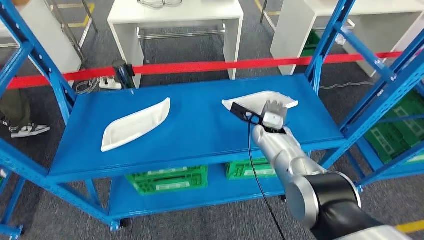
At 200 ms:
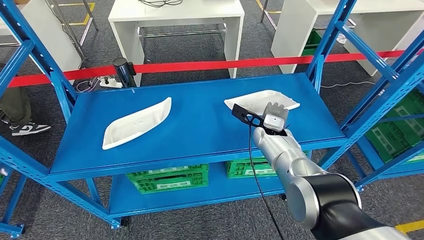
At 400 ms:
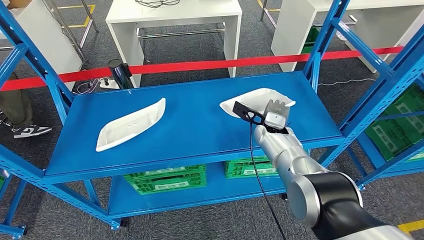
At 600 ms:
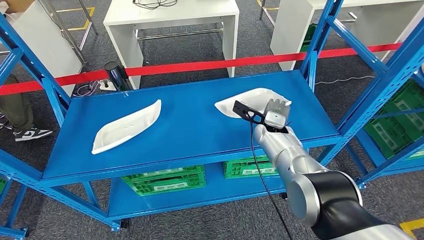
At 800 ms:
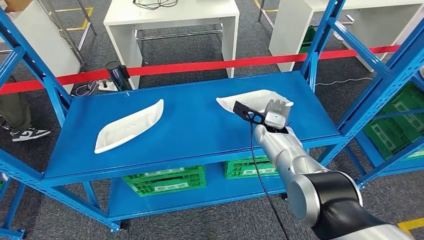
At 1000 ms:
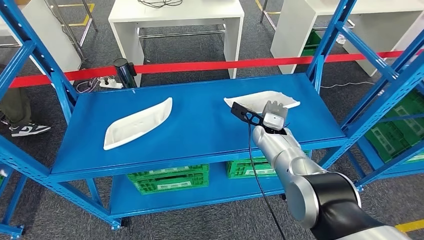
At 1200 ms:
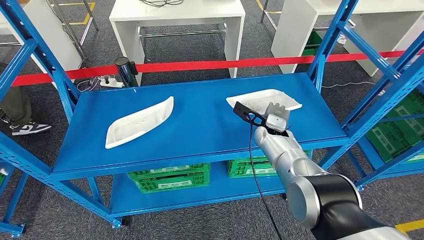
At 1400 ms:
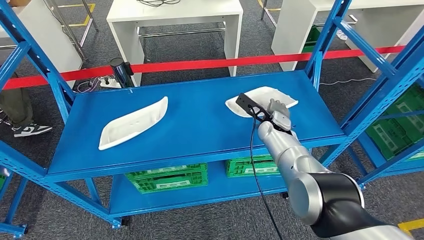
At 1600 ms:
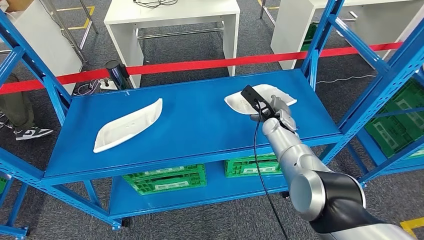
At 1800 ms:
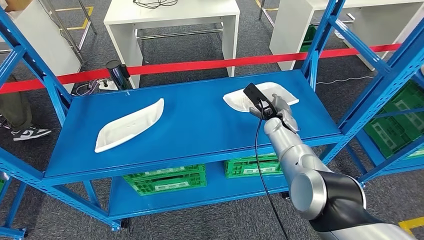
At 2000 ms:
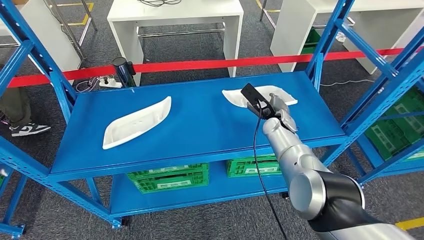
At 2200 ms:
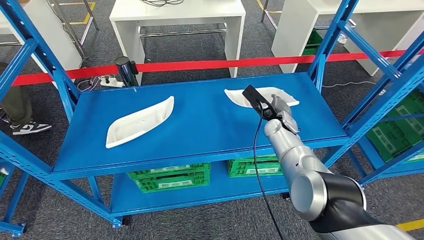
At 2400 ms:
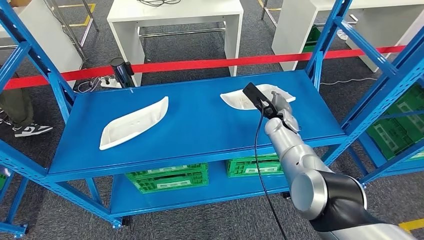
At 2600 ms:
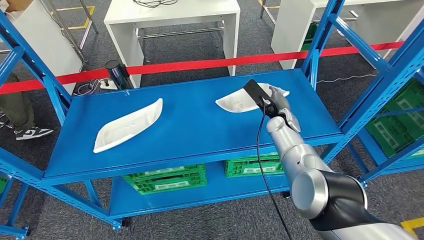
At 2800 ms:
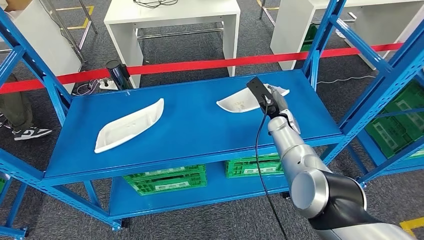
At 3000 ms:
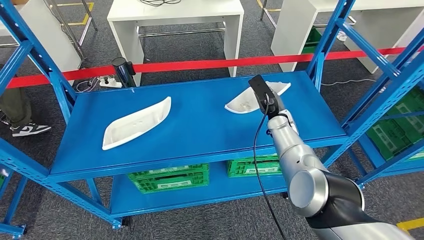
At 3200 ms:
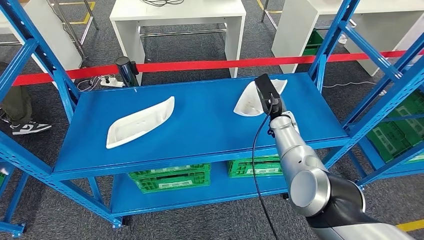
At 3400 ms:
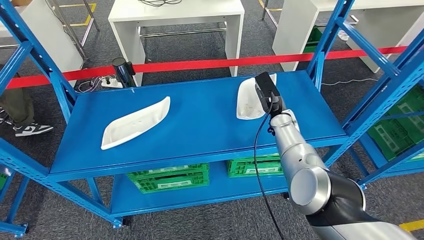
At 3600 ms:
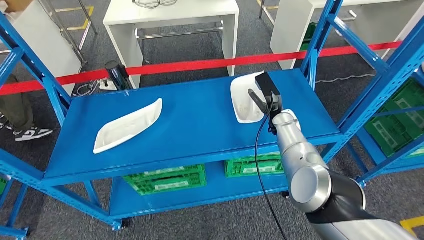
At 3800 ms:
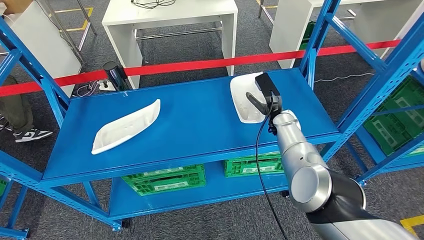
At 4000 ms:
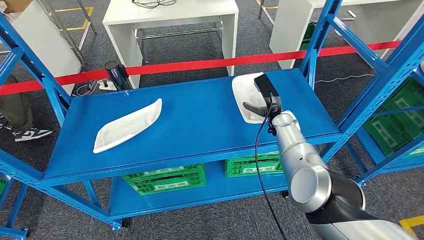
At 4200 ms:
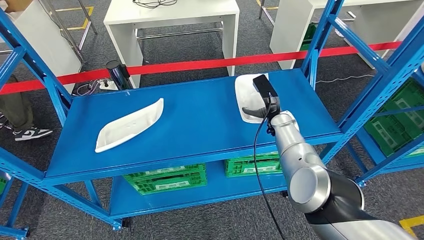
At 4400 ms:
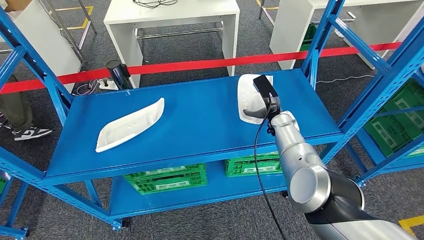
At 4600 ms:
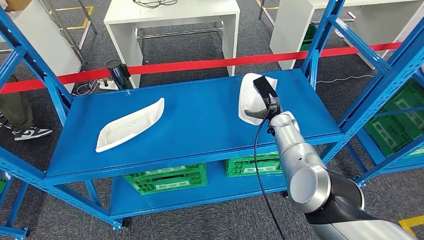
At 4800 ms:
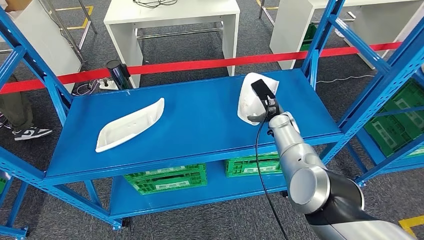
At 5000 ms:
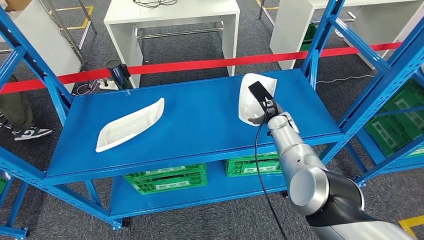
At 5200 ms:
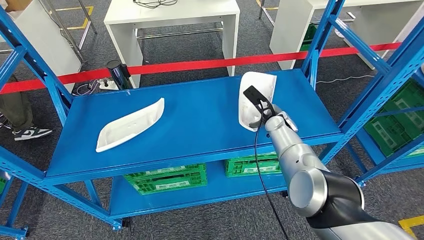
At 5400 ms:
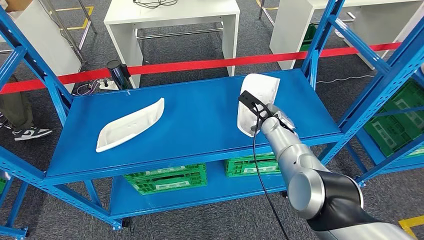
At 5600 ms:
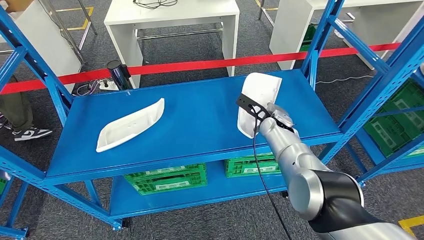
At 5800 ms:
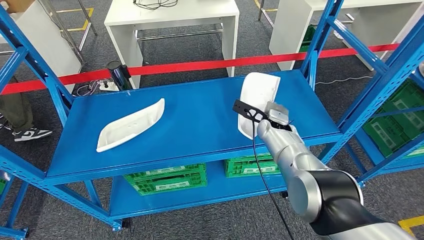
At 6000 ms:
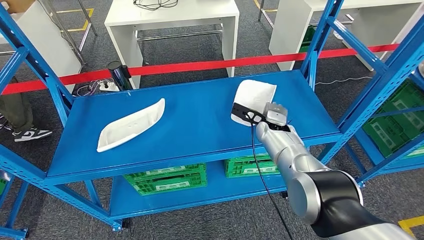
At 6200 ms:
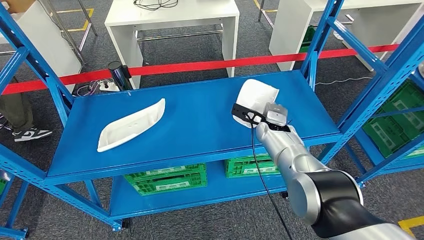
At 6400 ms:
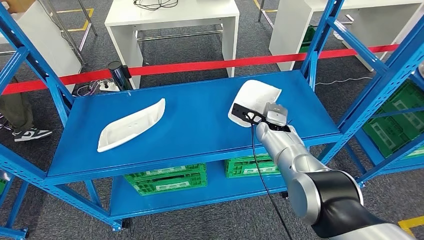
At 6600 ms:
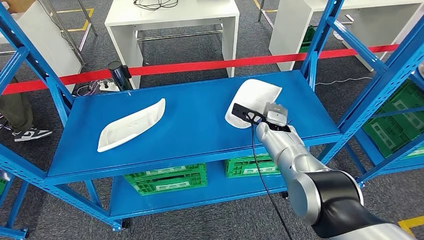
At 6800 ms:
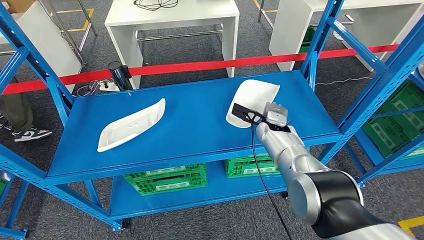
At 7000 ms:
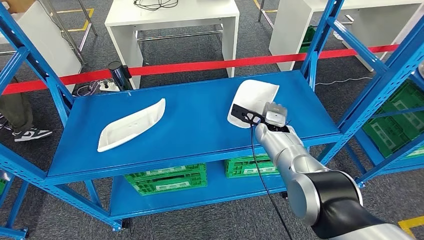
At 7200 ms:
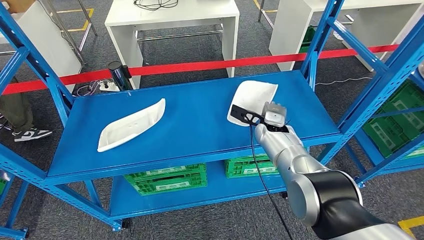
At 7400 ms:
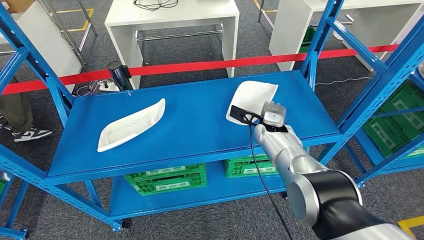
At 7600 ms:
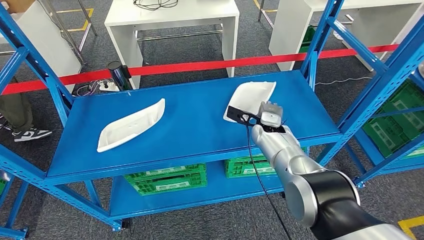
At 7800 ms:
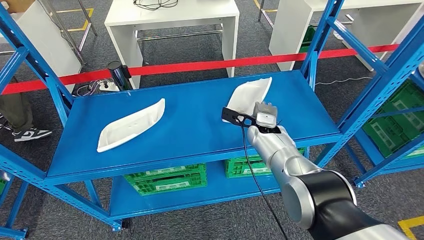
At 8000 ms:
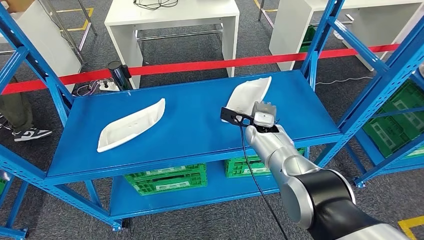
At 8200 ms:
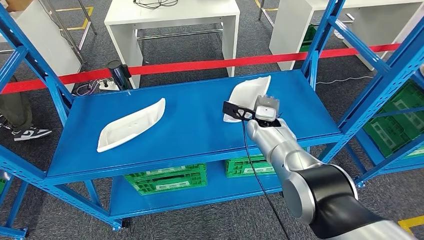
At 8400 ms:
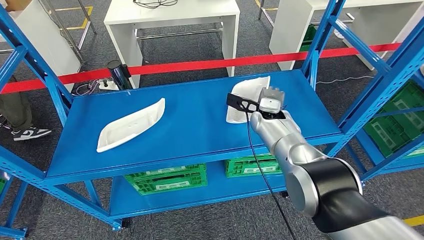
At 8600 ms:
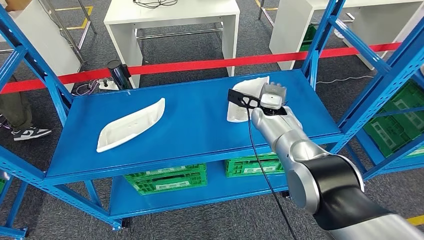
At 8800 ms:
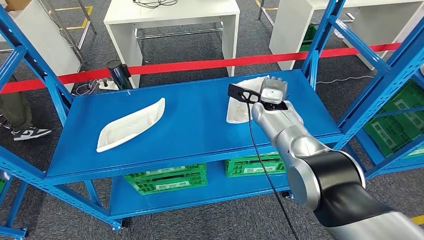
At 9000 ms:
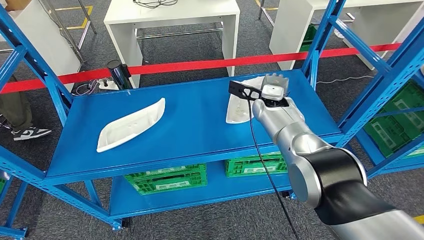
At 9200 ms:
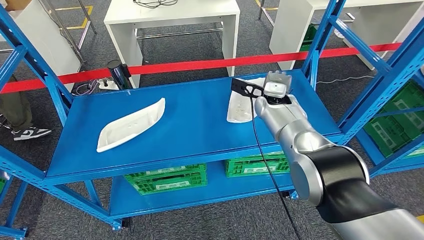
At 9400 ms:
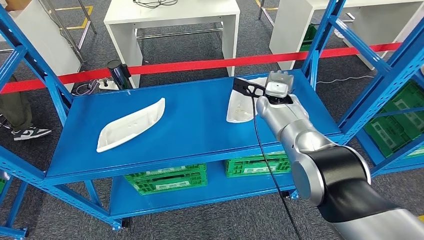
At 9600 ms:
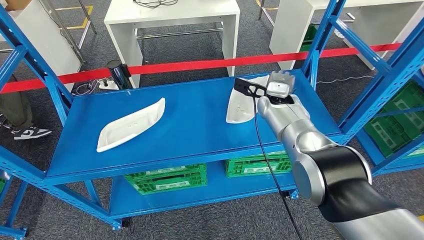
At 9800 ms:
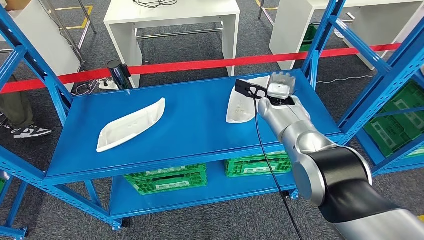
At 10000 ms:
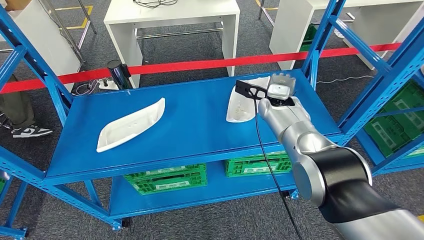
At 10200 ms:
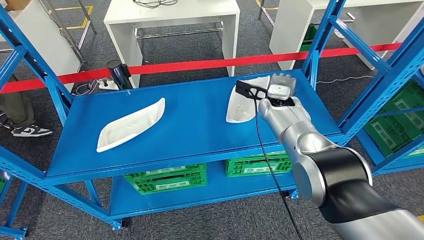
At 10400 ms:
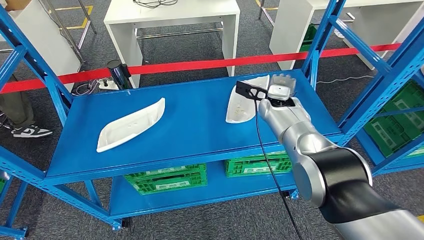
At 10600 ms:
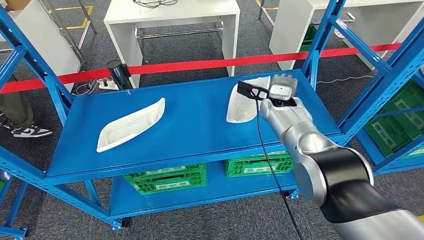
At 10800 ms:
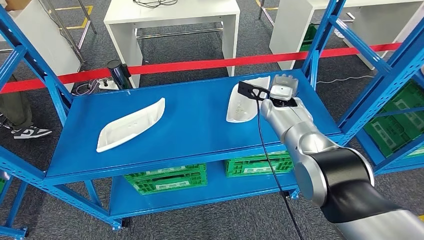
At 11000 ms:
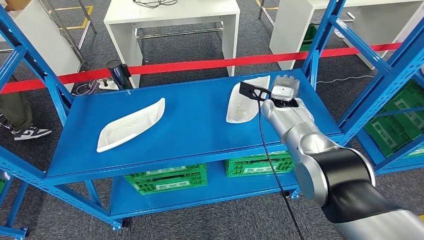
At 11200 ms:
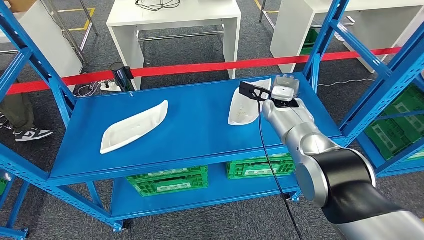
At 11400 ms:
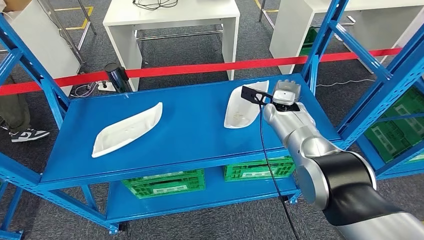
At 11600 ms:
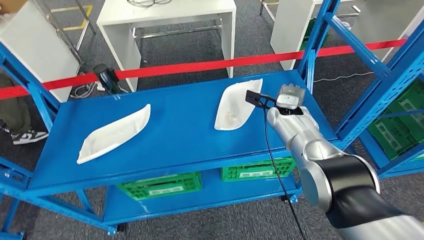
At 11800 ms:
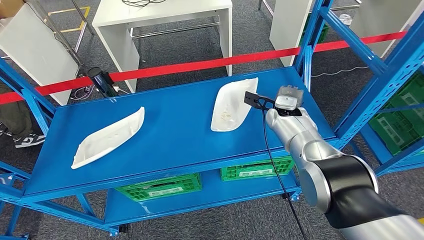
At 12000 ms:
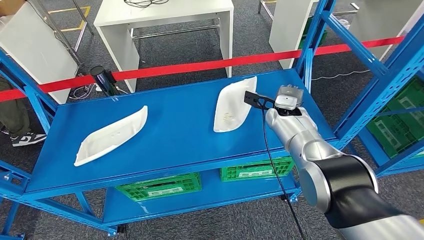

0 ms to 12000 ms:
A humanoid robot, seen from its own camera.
6000 ms to 7600 ms: There are only small adjustments of the hands.
7600 ms to 9000 ms: The right hand travels upward by some 10 cm.
9000 ms to 10400 ms: The hands make only small movements.

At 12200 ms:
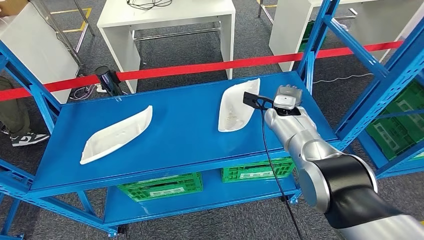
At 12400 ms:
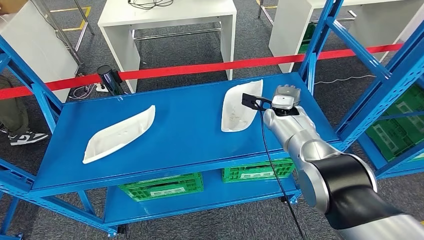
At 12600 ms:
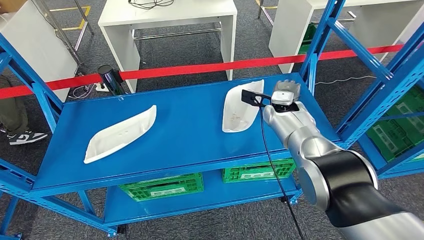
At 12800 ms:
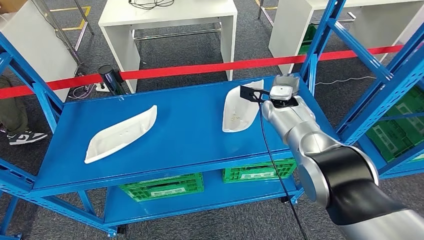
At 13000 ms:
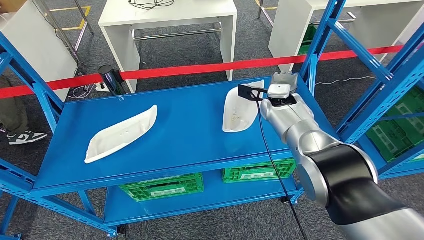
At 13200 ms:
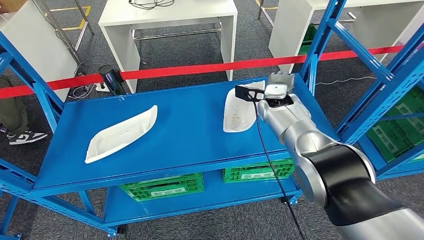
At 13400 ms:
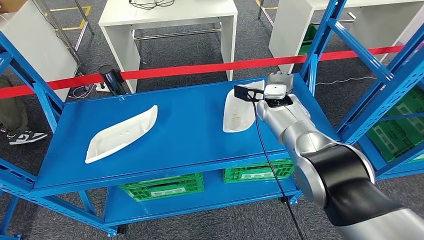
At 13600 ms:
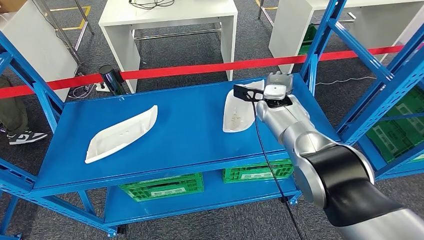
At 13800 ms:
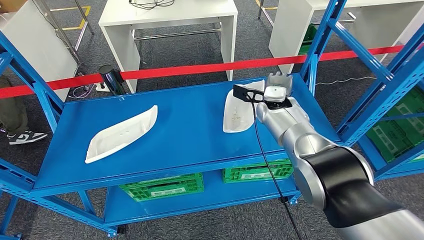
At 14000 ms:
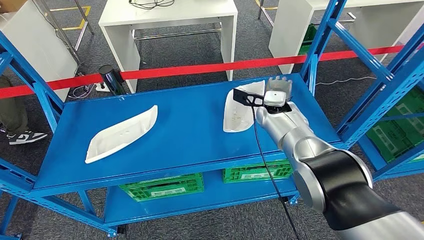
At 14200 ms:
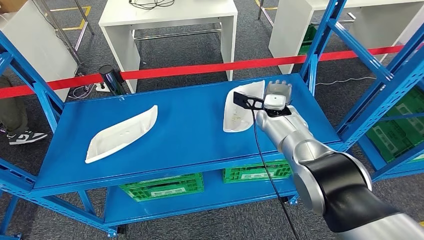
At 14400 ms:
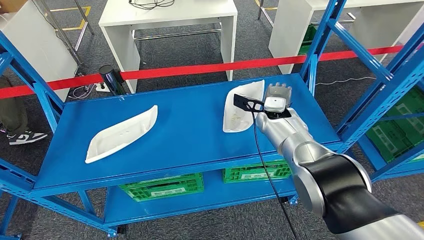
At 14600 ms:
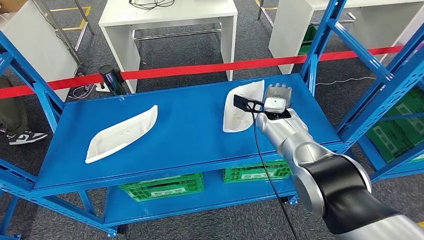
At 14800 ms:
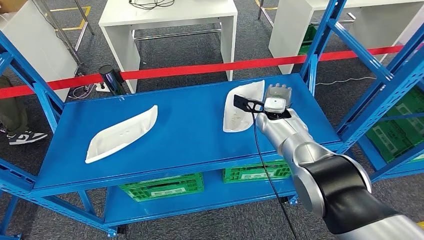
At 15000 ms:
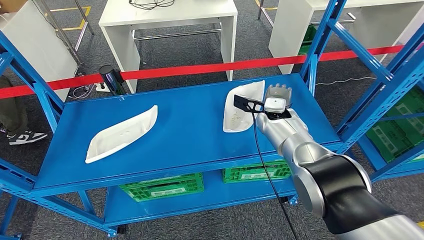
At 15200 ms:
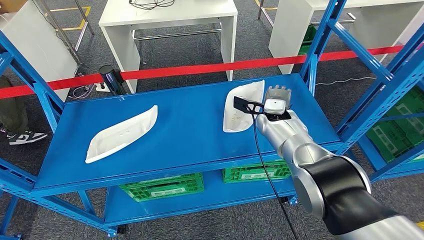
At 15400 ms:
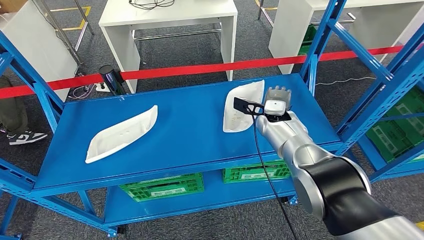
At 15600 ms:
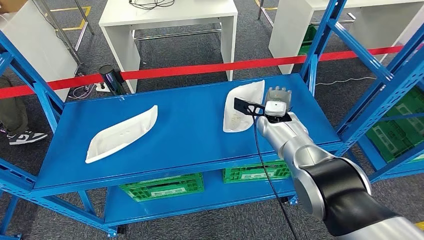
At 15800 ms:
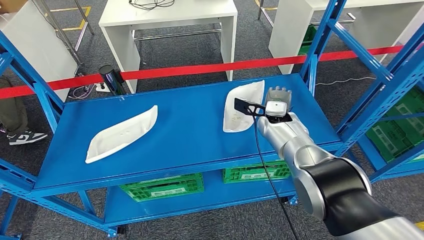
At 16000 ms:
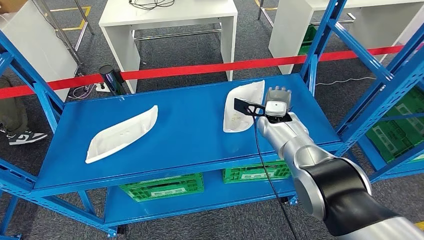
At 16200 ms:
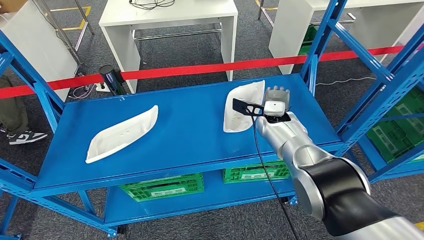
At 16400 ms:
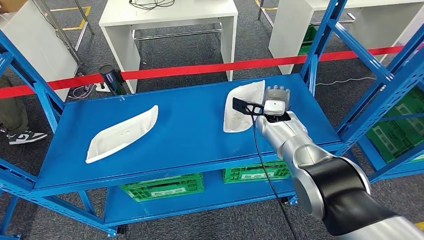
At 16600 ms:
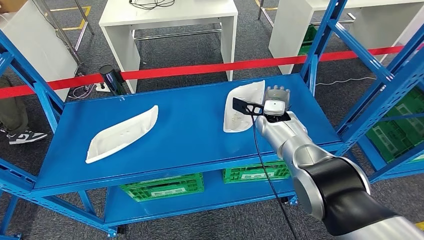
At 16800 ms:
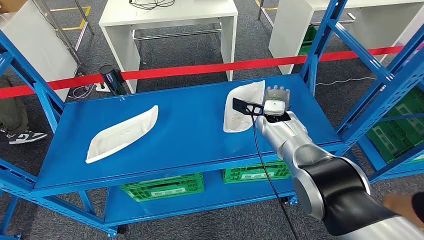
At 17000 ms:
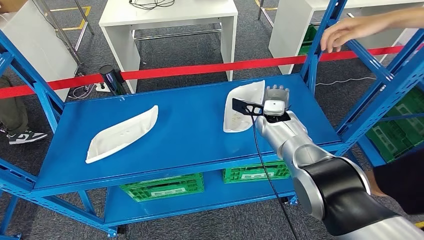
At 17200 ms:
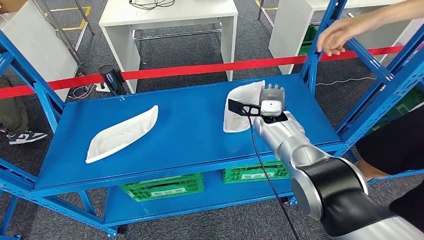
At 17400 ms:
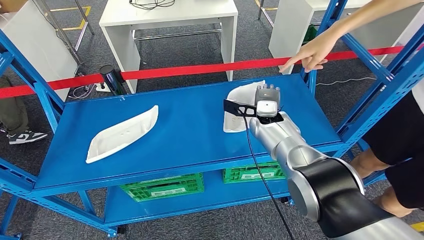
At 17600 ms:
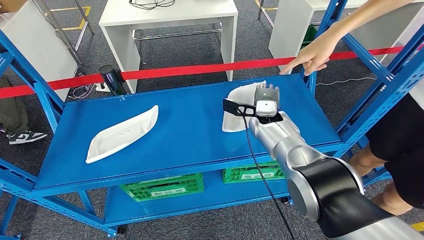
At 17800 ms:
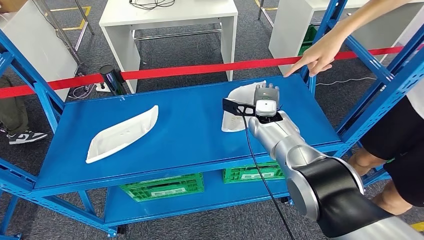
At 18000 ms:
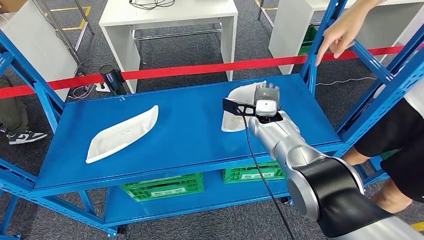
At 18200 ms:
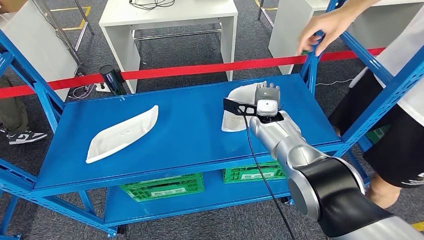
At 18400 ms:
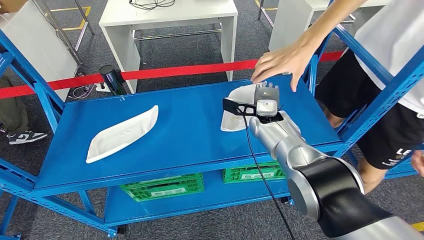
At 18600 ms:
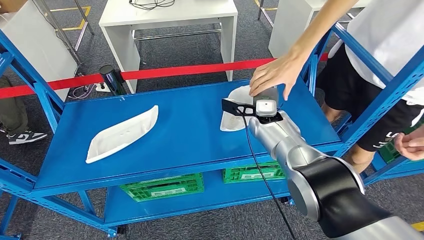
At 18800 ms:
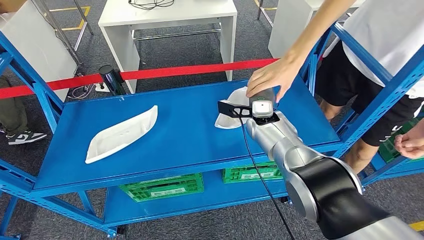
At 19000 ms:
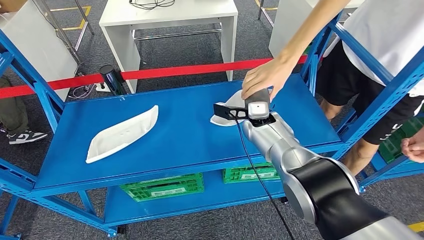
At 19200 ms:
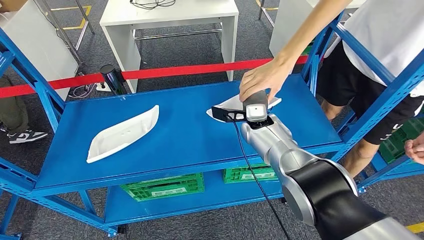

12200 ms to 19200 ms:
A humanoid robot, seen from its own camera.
12200 ms to 15000 ms: There are only small adjustments of the hands.
15000 ms to 16400 ms: Both hands stay about where they are.
16400 ms to 17800 ms: The hands move only a little.
